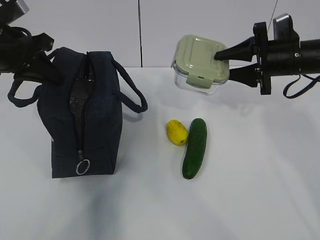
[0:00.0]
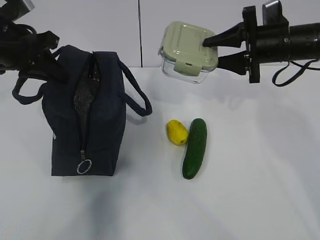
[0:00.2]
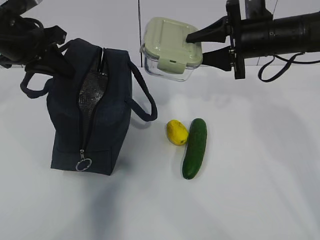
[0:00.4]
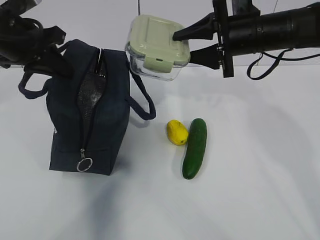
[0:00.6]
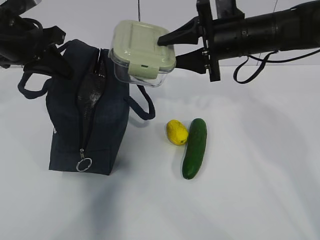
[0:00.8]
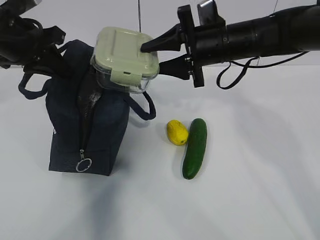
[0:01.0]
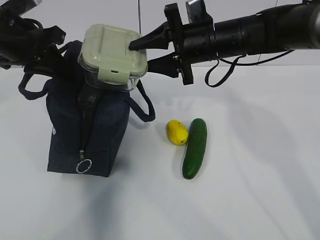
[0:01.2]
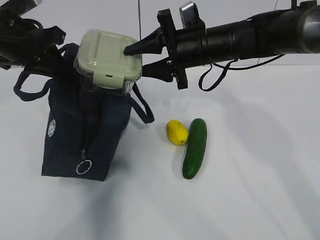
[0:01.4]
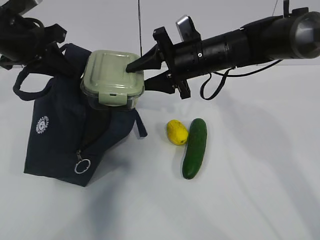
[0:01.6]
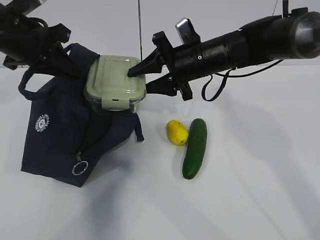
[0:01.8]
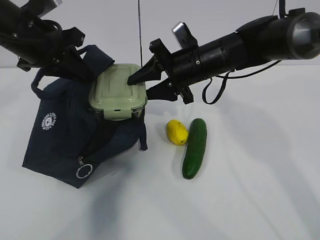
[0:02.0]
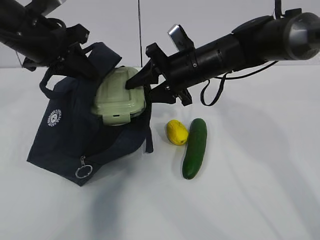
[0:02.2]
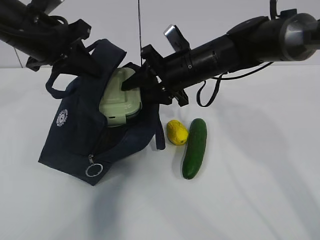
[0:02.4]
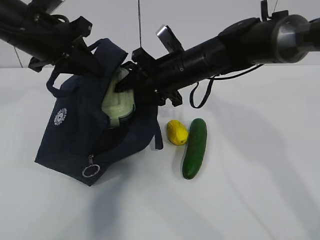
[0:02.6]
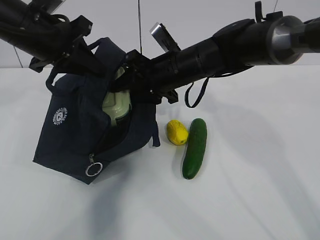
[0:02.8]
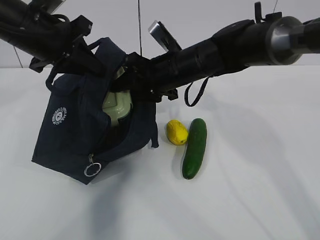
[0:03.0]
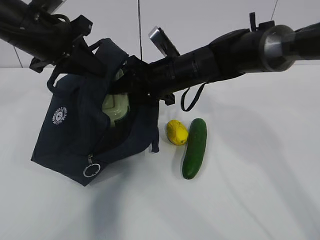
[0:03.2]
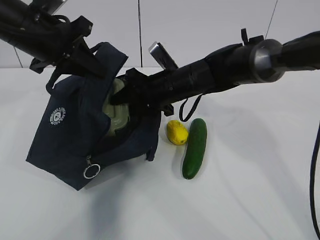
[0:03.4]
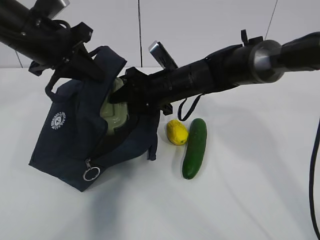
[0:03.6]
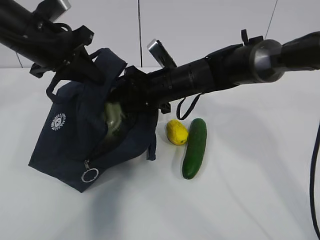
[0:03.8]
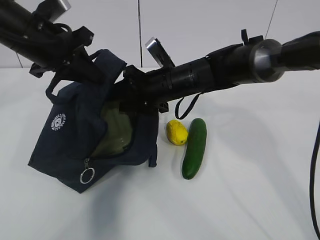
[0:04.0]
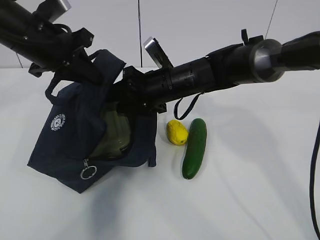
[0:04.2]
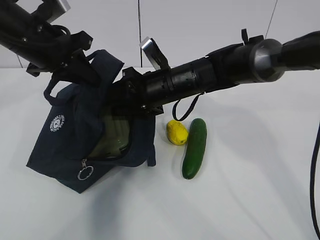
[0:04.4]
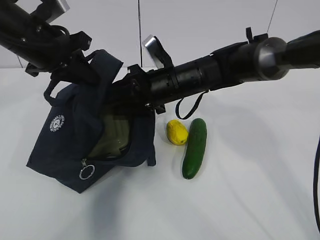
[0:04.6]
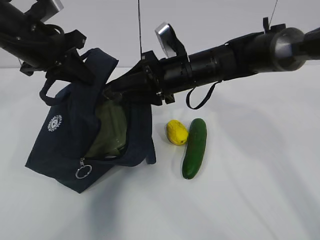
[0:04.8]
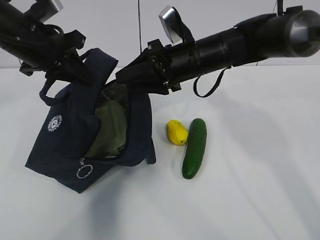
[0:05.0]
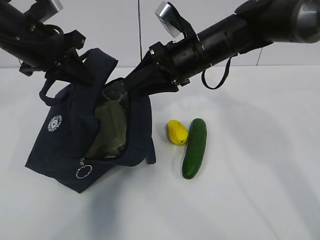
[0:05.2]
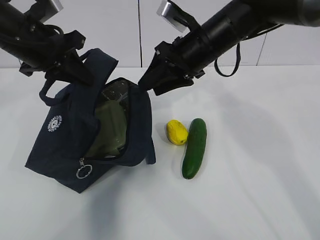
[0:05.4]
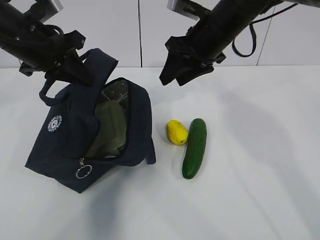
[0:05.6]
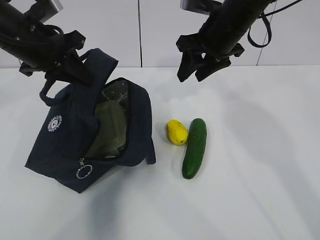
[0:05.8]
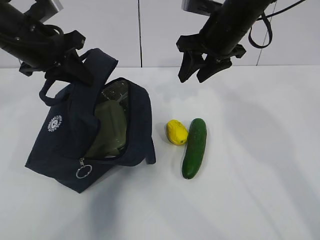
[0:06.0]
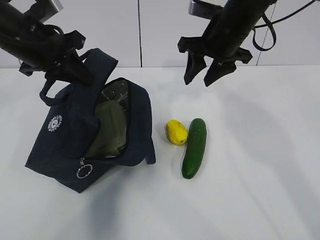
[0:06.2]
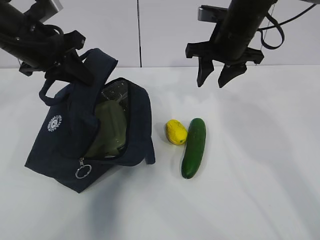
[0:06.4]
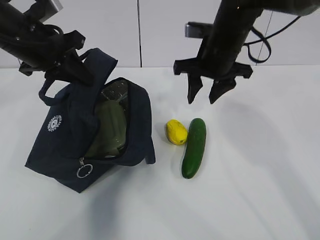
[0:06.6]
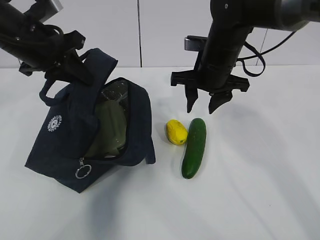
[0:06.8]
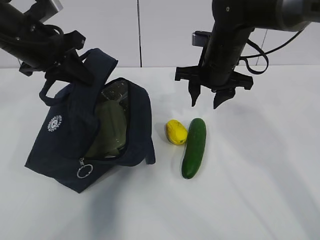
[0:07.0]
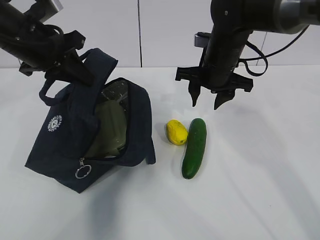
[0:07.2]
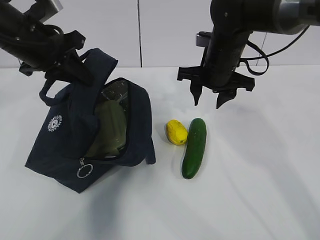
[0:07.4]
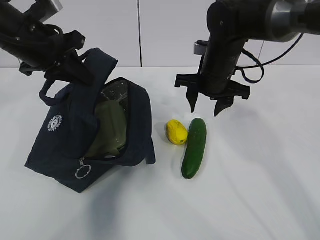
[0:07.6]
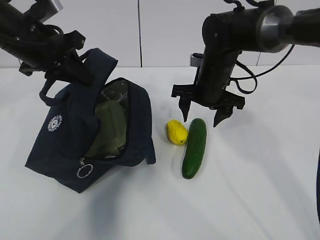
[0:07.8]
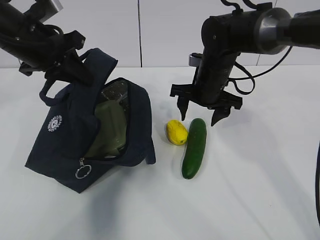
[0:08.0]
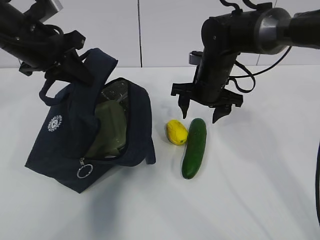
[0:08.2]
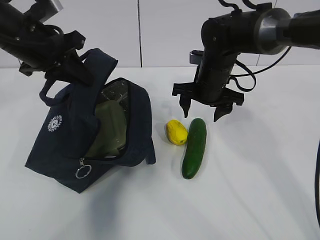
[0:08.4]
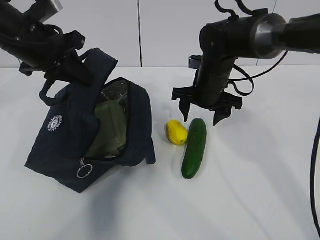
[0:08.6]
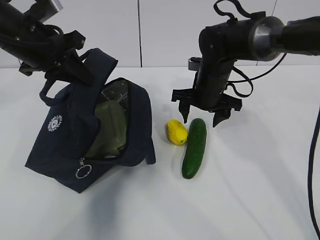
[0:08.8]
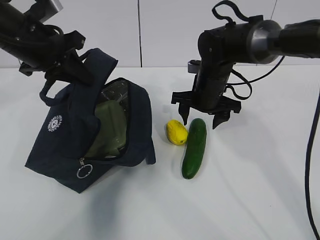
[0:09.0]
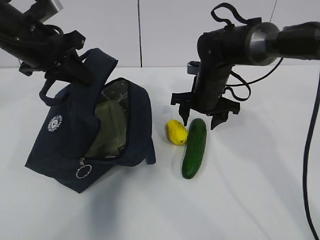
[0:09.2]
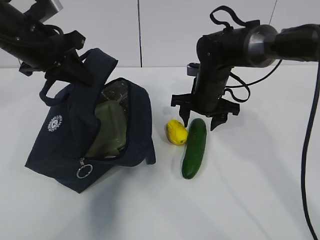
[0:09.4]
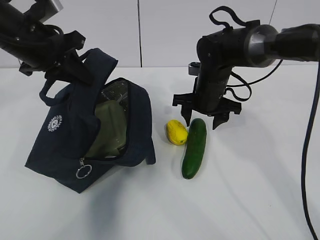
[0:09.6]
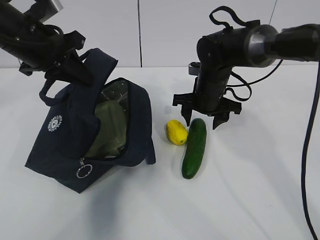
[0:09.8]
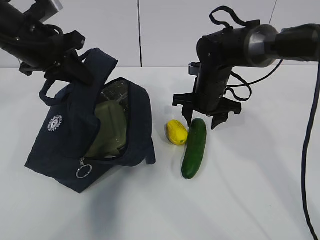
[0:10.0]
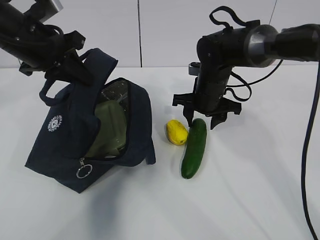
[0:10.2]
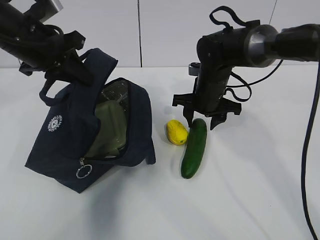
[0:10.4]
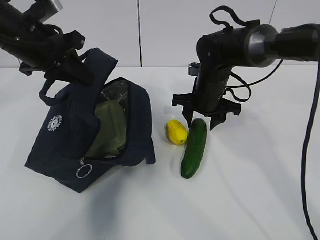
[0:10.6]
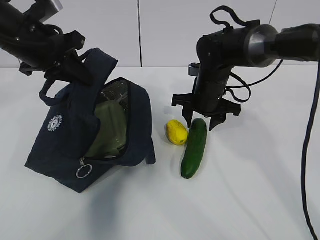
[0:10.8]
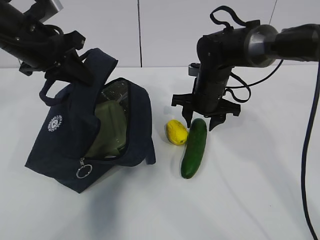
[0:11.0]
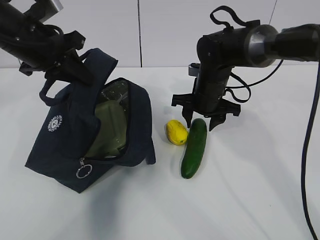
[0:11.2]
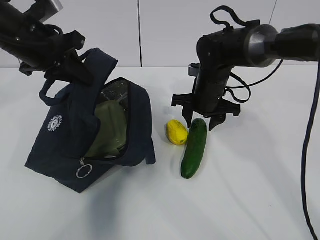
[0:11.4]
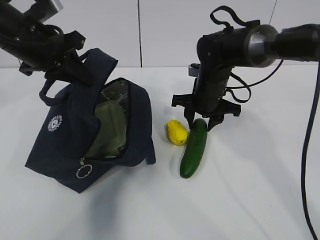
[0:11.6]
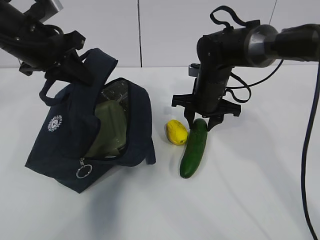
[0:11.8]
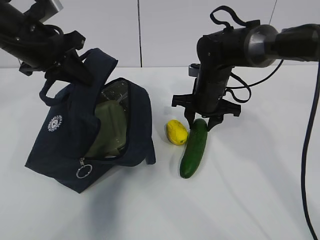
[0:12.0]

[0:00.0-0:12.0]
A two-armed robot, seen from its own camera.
Step, 0:00.0 to 0:06.0: Grab the cucumber with your right hand.
Step, 0:06.2 to 0:09.0: Place it into the bag with your right hand.
0:00.0 to 0:01.6: The right gripper travels to the left by approximately 15 cm.
0:04.4 to 0:06.0: The right gripper moves upward and to the right, some 15 cm.
0:06.0 to 0:07.6: The right gripper travels downward by approximately 10 cm.
0:07.6 to 0:09.0: The grippers make only small movements.
0:09.0 to 0:12.0: Both grippers stay about where they are.

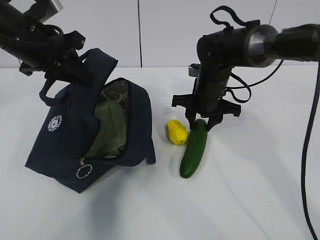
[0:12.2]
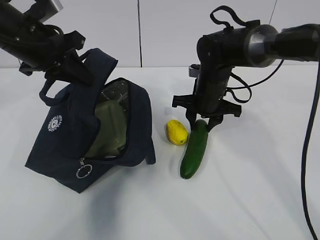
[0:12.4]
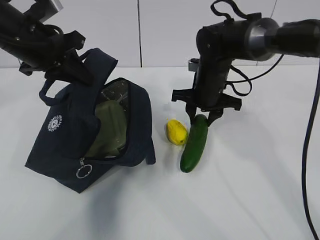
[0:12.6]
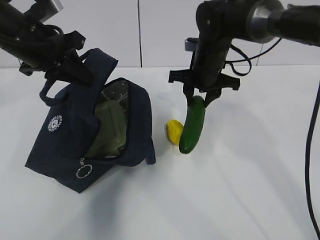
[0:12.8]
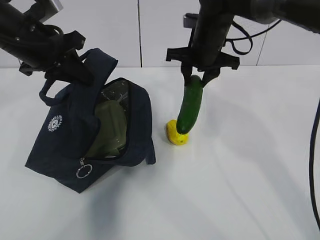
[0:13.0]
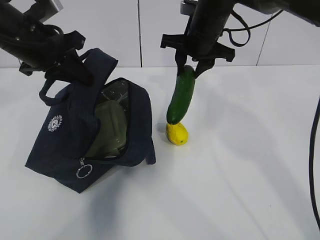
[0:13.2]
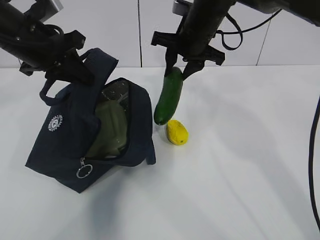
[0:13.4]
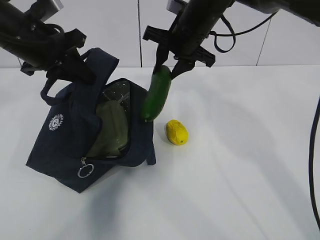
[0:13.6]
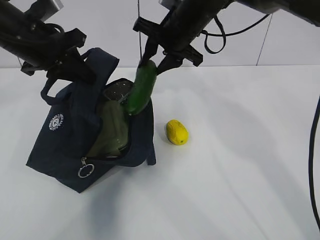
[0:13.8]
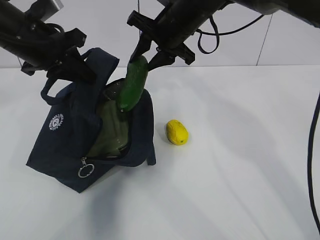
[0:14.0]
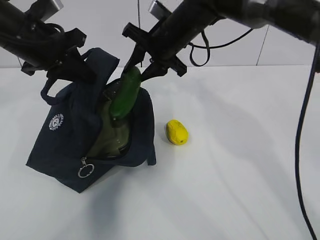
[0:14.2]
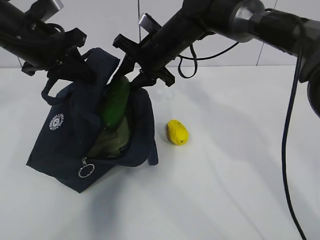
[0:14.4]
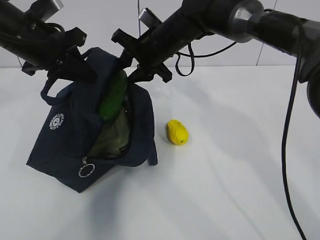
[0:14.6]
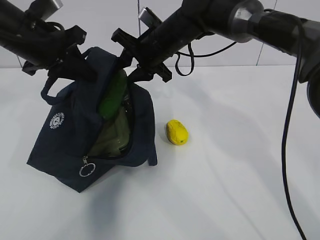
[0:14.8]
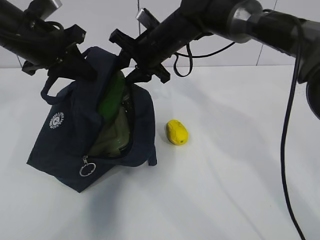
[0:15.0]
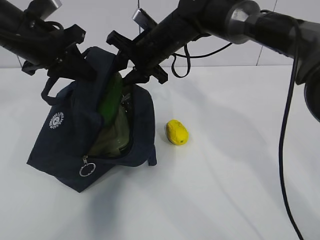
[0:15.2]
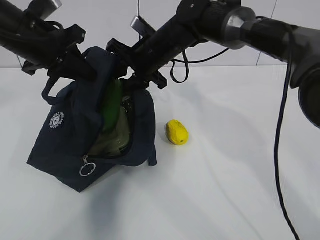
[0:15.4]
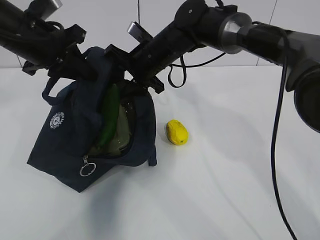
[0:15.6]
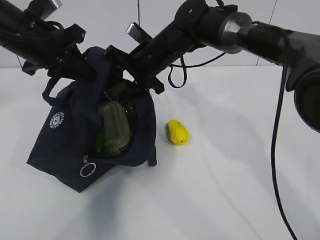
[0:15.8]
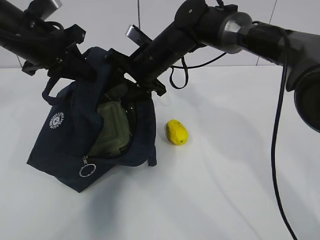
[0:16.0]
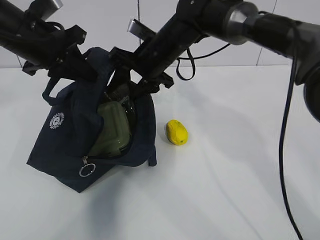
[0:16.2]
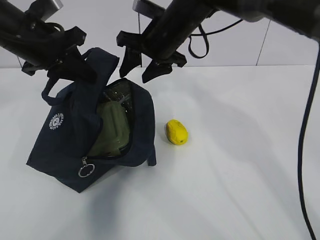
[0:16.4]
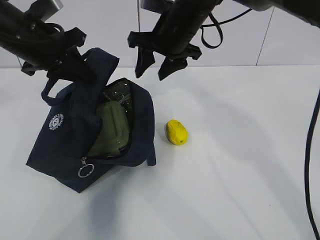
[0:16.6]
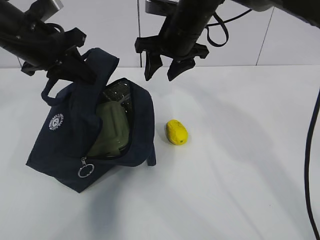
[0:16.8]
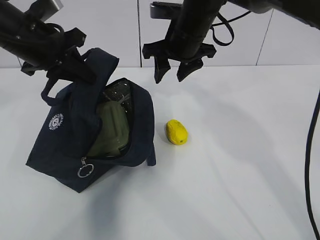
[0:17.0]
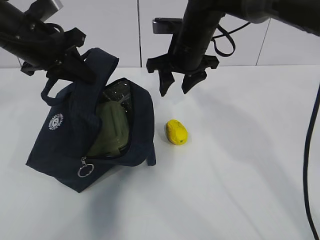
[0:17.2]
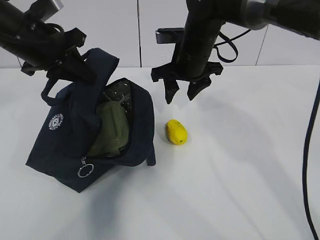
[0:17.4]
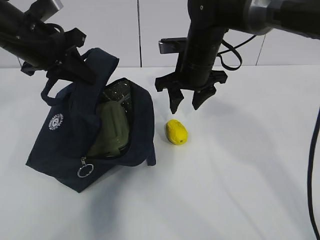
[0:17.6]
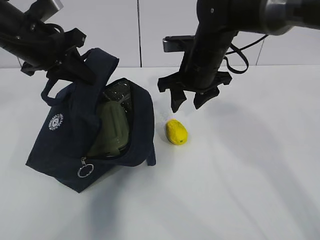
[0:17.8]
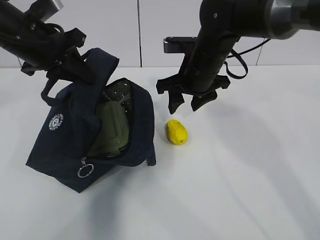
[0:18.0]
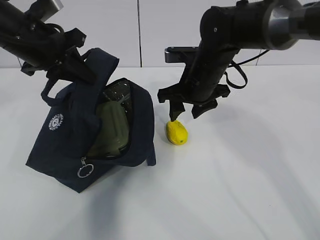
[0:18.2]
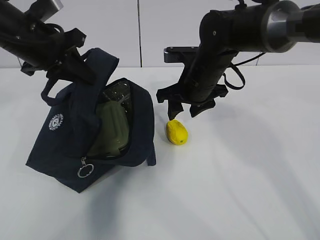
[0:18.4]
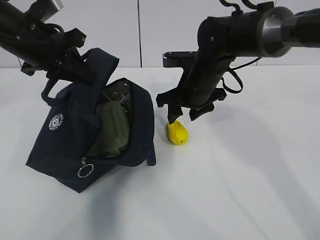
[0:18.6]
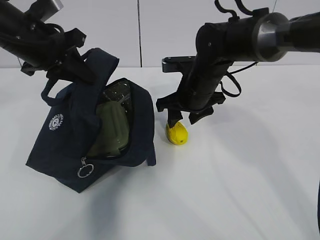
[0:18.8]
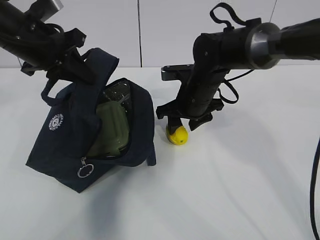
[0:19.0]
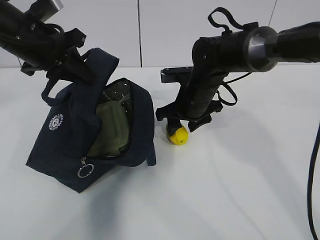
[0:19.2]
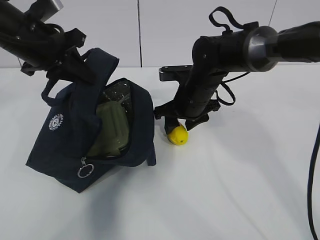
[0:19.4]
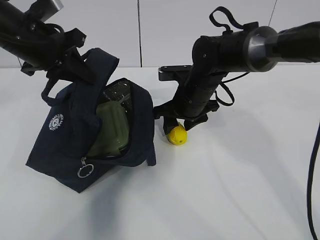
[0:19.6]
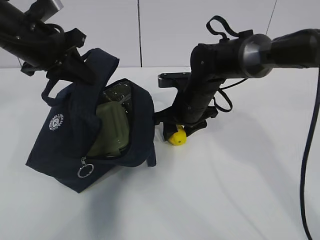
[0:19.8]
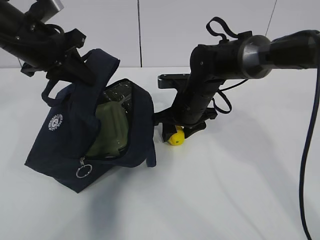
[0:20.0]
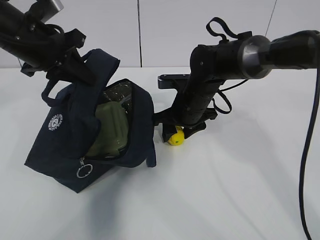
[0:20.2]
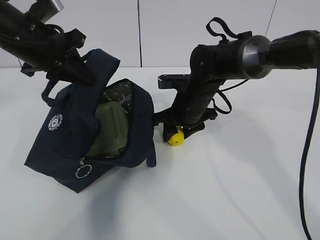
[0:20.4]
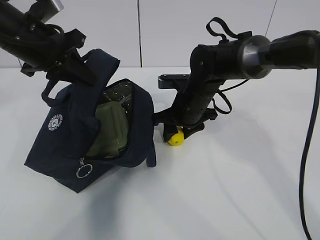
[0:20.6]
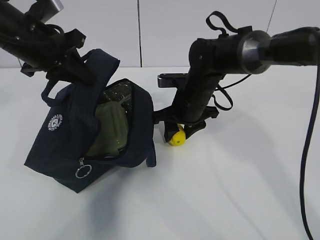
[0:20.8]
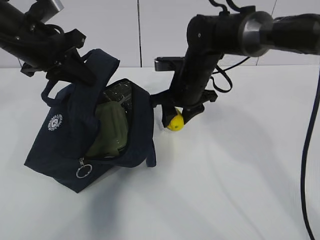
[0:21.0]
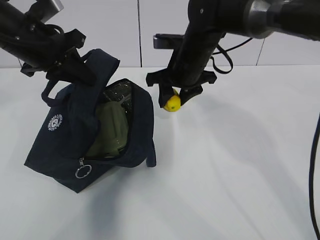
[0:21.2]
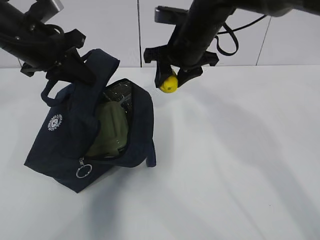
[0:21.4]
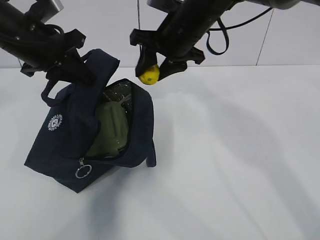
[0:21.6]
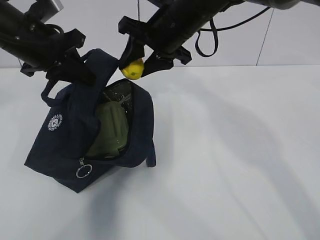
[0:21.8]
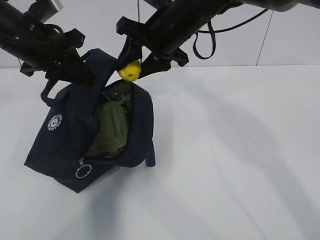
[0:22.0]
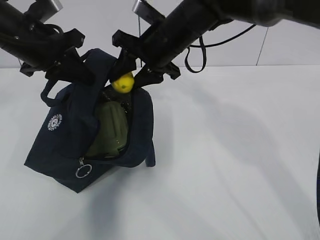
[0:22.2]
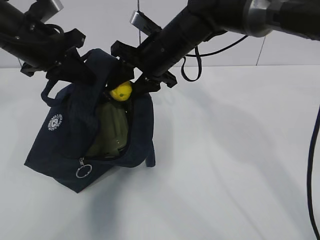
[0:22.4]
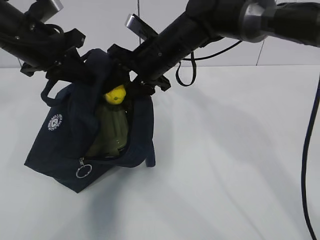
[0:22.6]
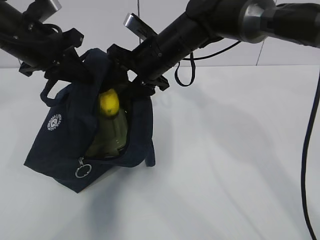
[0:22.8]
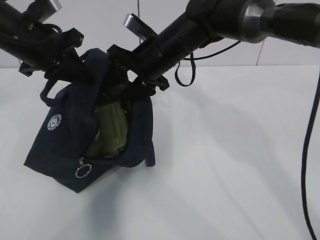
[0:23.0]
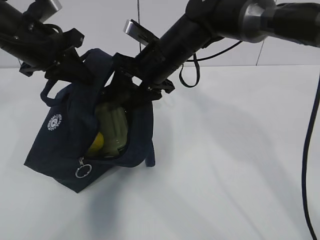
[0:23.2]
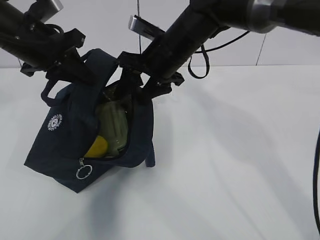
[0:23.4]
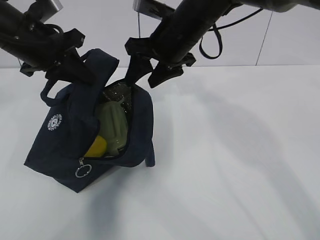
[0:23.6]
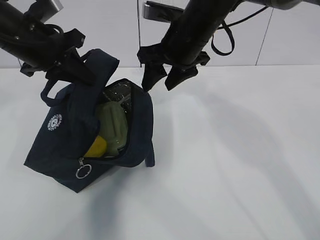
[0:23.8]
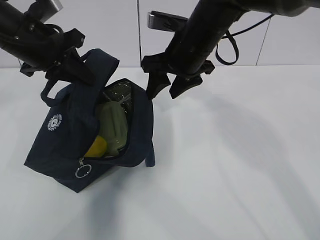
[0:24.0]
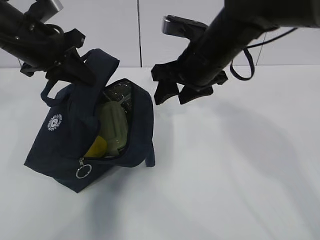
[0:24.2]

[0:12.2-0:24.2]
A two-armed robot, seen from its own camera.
Step, 0:15.6 to 0:19.4: Grab the lunch bag with your right hand.
0:12.2 to 0:13.8: The right gripper is displaced upward and to the left by some 15 cm.
0:13.8 to 0:15.2: The right gripper ends up about 5 cm from where it was.
0:15.2 to 0:16.6: The right gripper moves some 5 cm.
0:16.6 to 0:18.2: The right gripper is displaced downward by about 5 cm.
0:18.2 to 0:19.8: The right gripper goes about 5 cm downward.
0:19.8 to 0:21.2: The right gripper shifts about 10 cm upward.
0:21.2 to 0:22.6: The right gripper moves roughly 5 cm.
0:22.6 to 0:24.2: The right gripper is displaced to the right and backward by some 10 cm.
